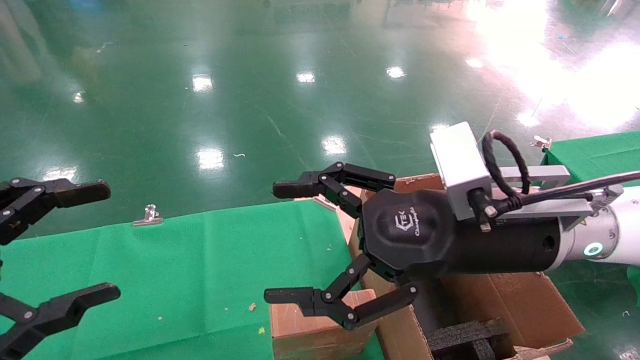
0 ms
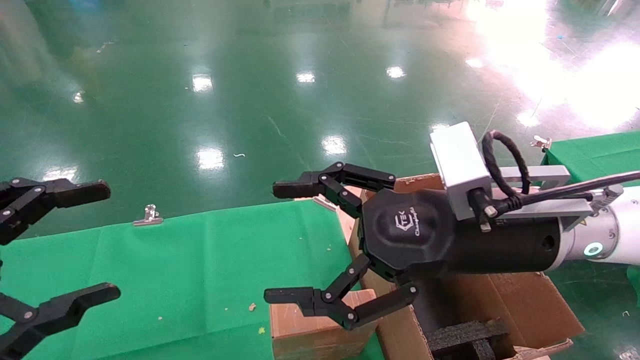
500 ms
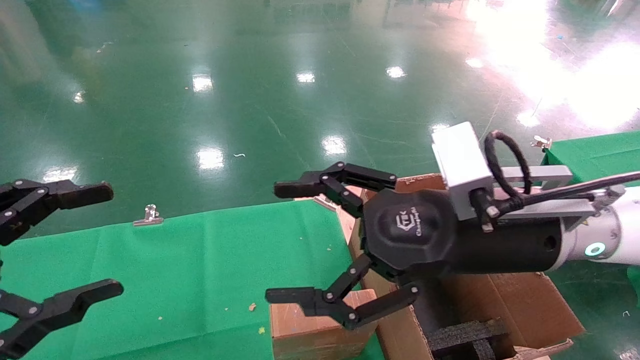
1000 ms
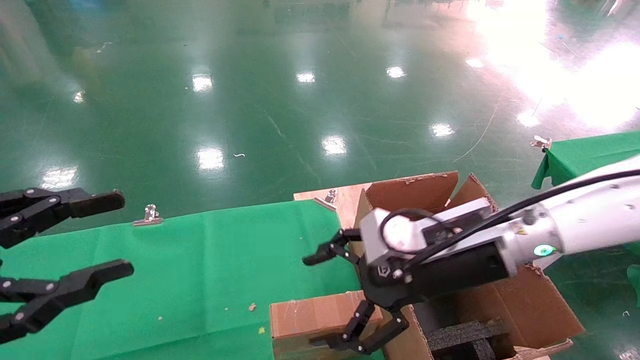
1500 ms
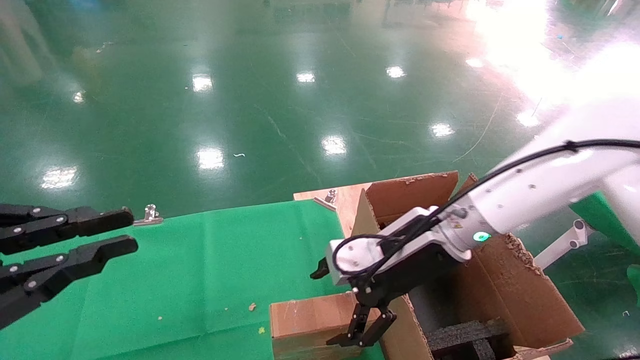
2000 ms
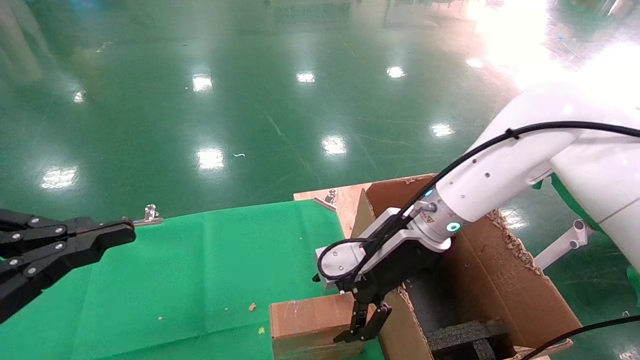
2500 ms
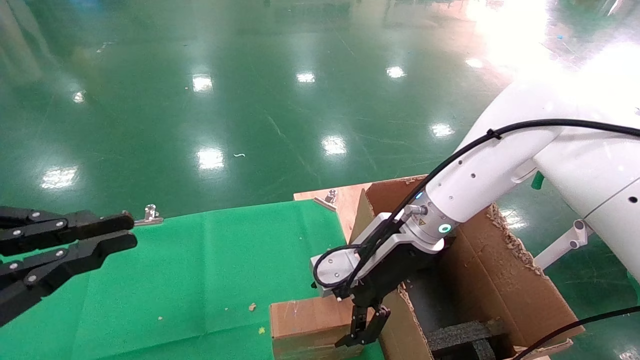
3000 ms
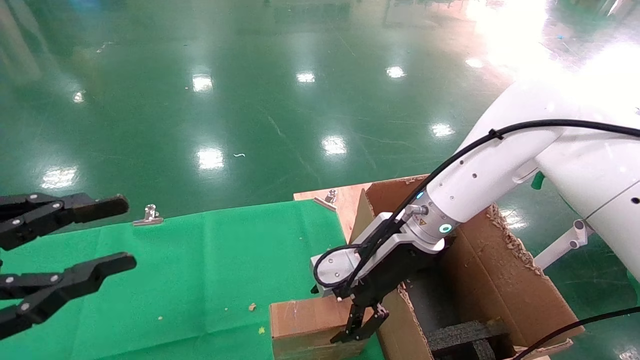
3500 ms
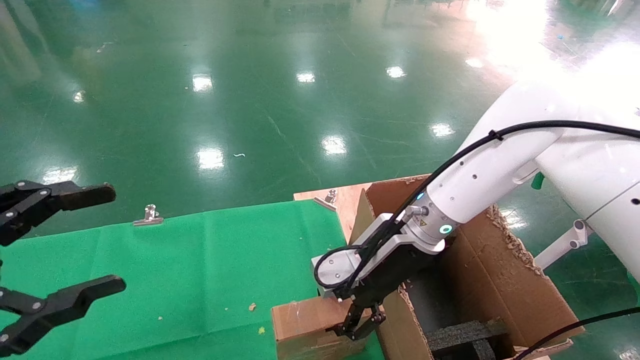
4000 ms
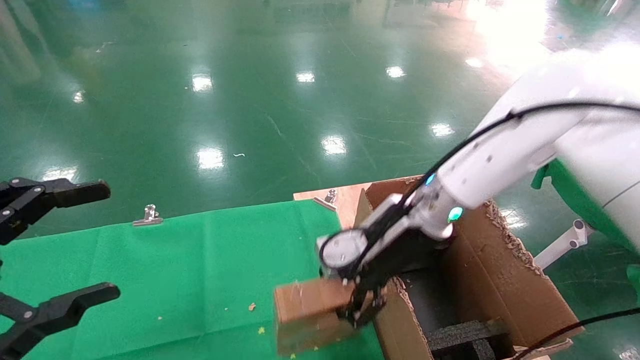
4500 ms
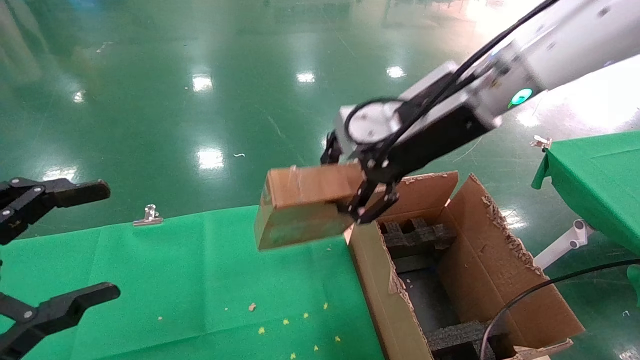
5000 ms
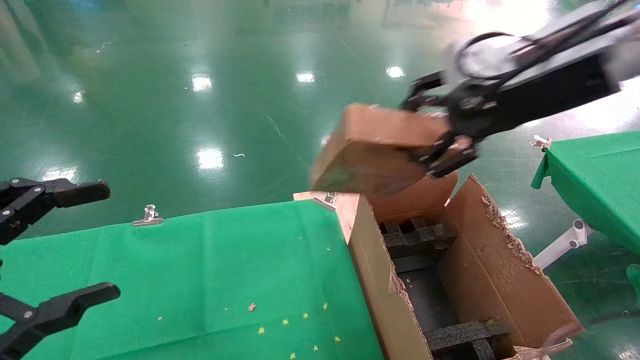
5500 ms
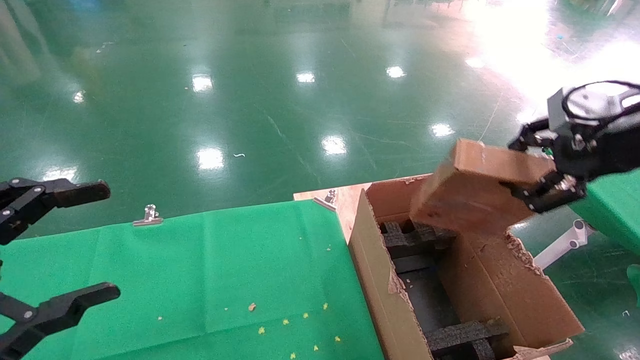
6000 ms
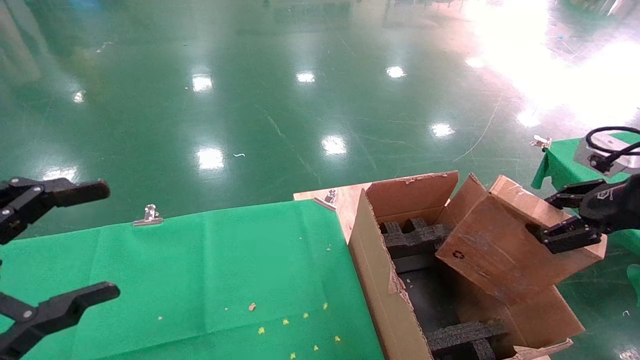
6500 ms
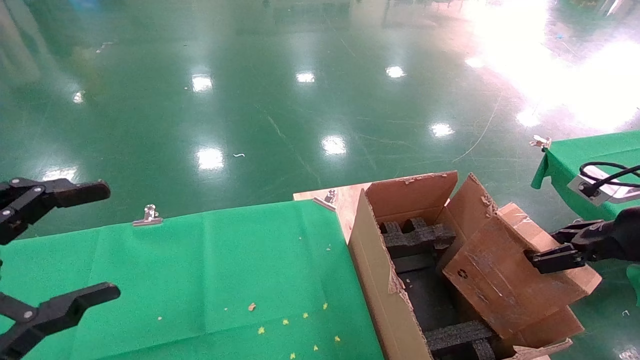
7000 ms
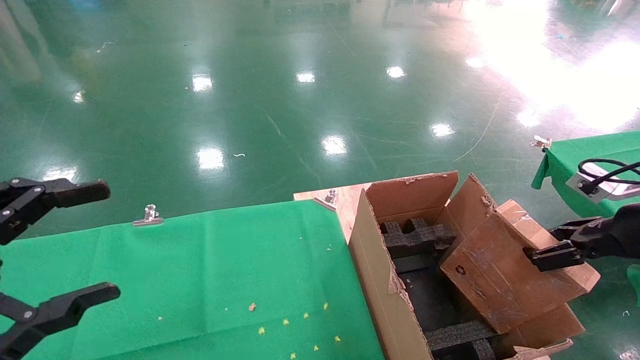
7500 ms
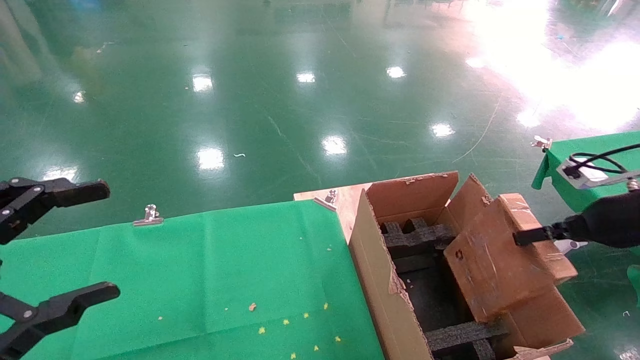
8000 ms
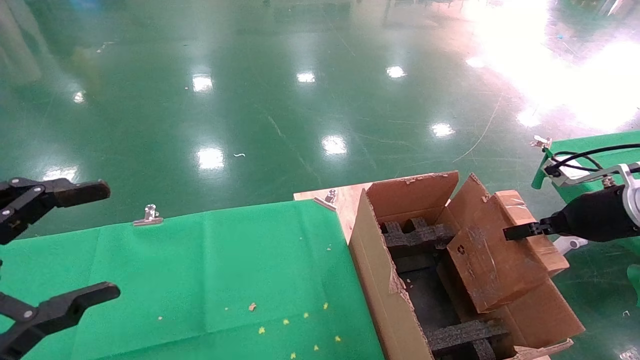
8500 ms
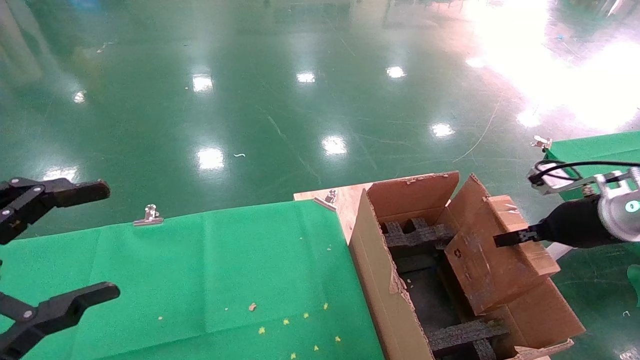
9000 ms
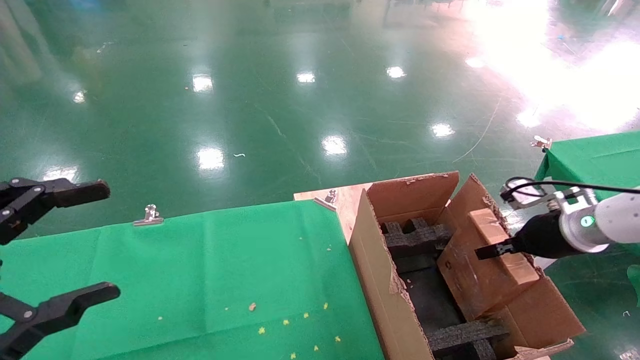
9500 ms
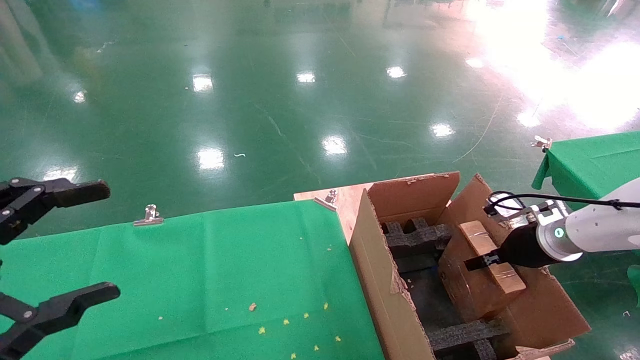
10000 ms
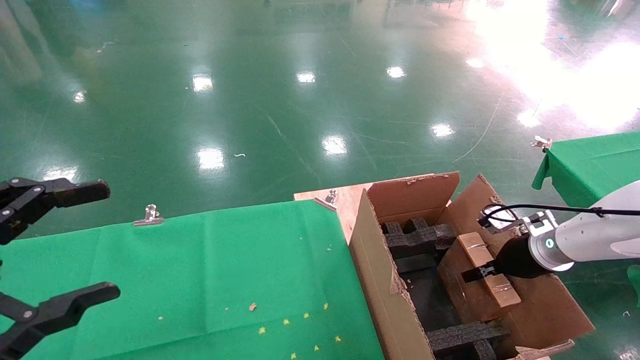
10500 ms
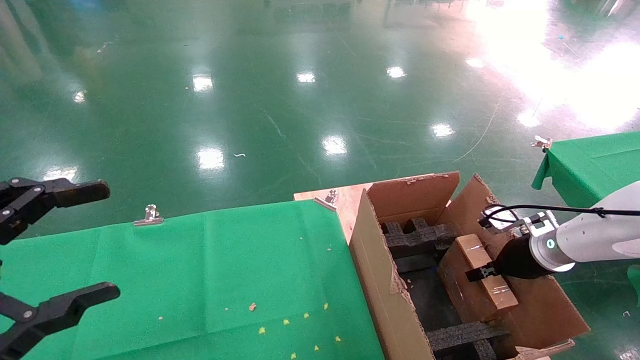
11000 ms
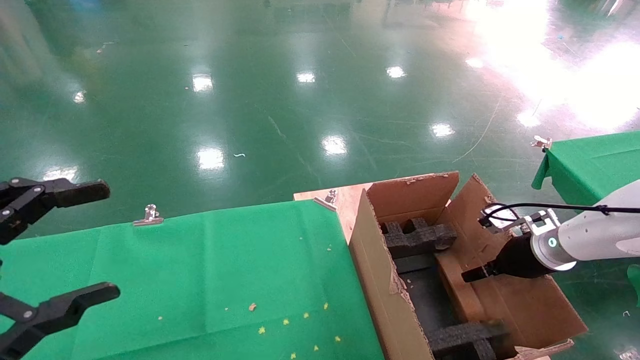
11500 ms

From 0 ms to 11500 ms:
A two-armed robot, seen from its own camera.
Task of the whole recording: using a robotic arm to pick up a cardboard box and palace it the carton.
Step, from 1500 ms to 4000 ms: Pick up the mouse and the power cord paper box.
From 0 ms to 2000 ms: The left gripper closes. Meanwhile the right gripper shifts roughly 10 cm forward and downward.
From 2000 ms to 4000 ms: The right gripper closes up, while the left gripper opens its fingers.
From 4000 ms to 6000 ms: The right gripper moves to the right, upward and backward, about 30 cm.
From 6000 ms to 7500 ms: The right gripper heads downward and to the right, covering about 15 cm.
From 7500 ms to 9500 ms: The right gripper travels forward and downward by some 10 cm.
From 9500 ms to 11500 ms: The right gripper changes place by roughly 5 cm, and opens up.

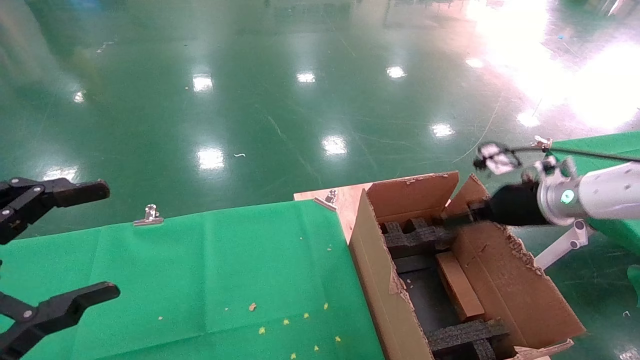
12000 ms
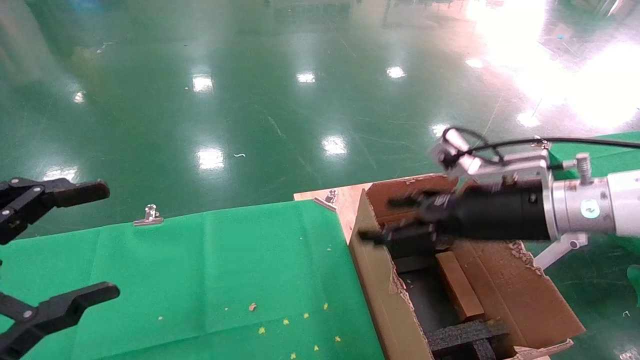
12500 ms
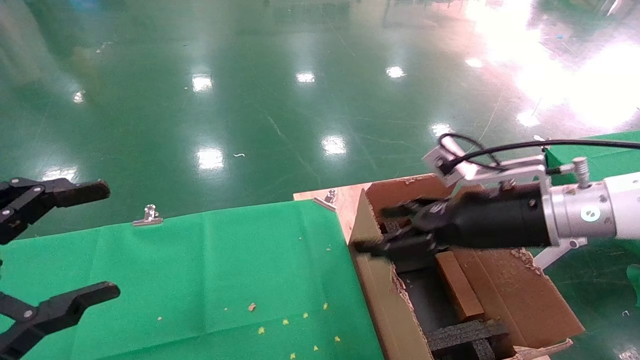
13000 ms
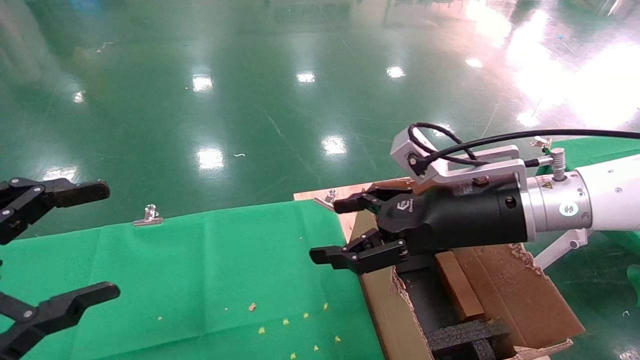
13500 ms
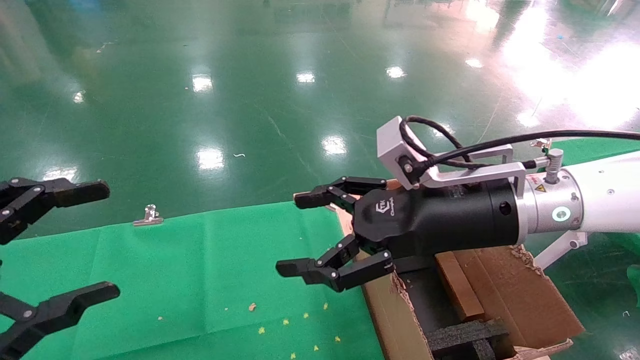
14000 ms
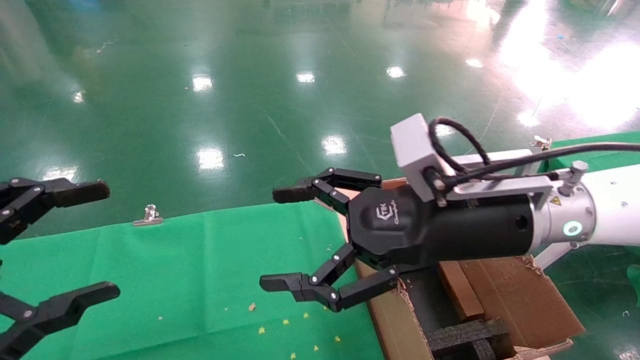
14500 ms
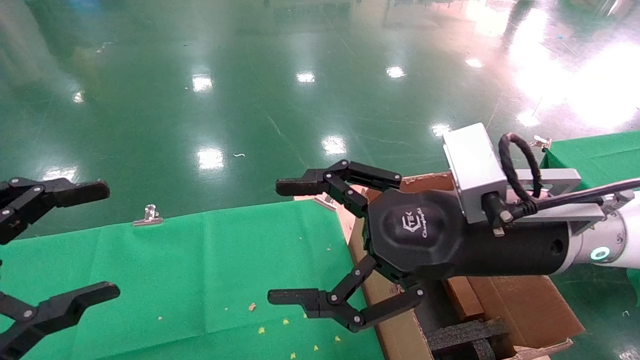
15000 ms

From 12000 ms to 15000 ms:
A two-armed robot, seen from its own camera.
Task of the whole recording: using a robotic arm to pick up a cardboard box and palace it the carton.
From 12000 ms to 13500 ms: The right gripper goes roughly 15 cm to the left and backward.
From 13500 ms to 15000 ms: The right gripper ends up roughly 5 cm from where it was.
